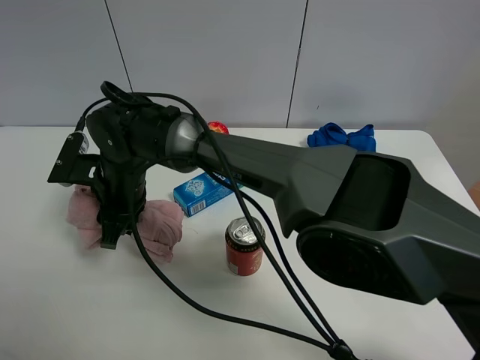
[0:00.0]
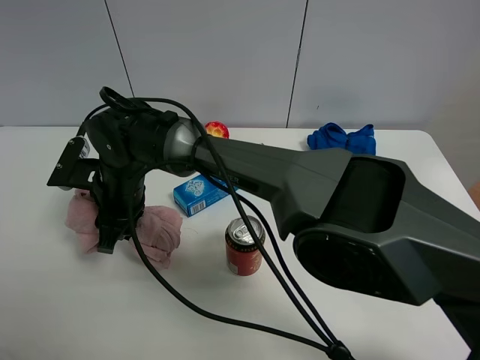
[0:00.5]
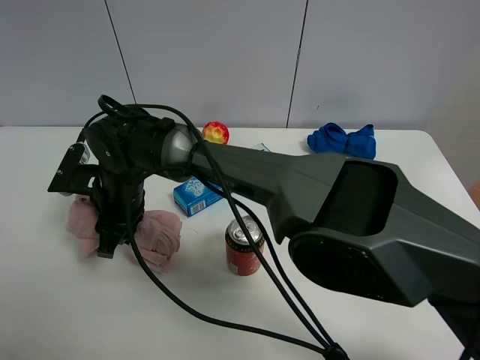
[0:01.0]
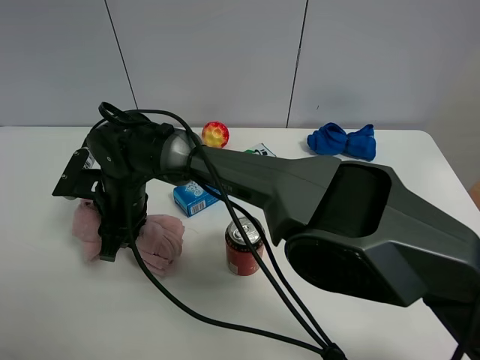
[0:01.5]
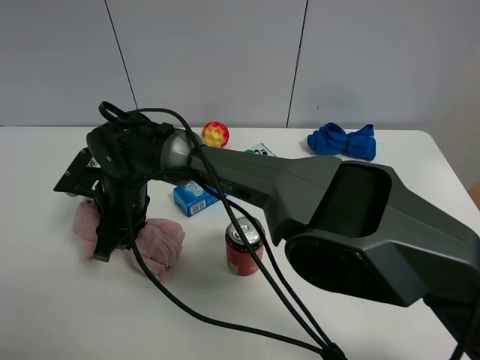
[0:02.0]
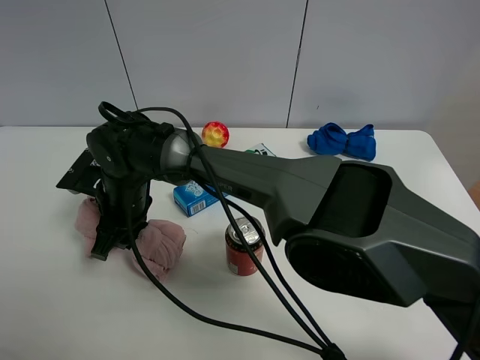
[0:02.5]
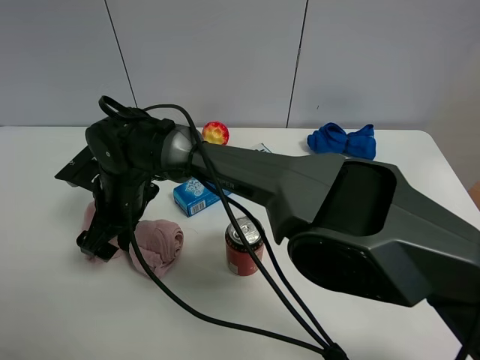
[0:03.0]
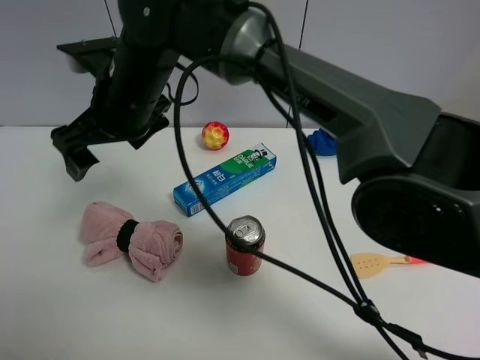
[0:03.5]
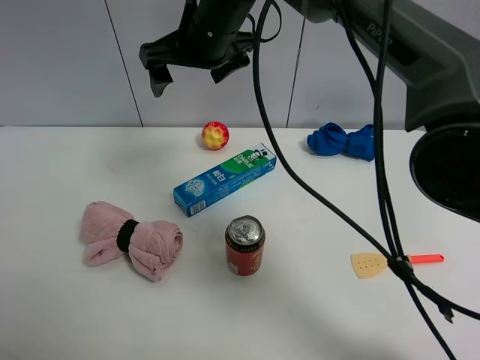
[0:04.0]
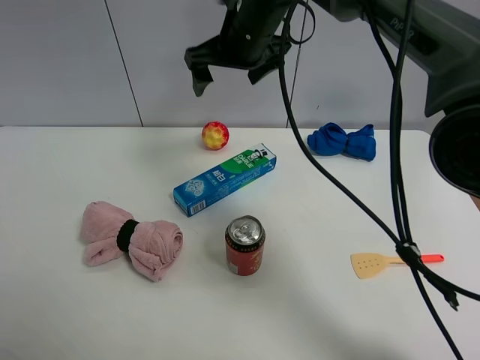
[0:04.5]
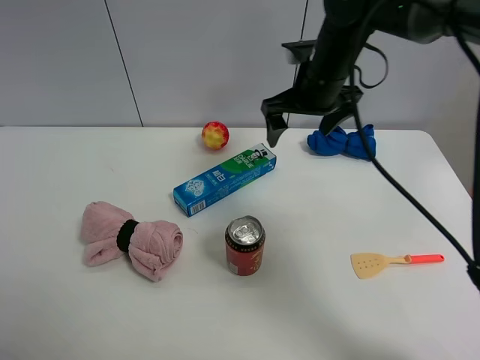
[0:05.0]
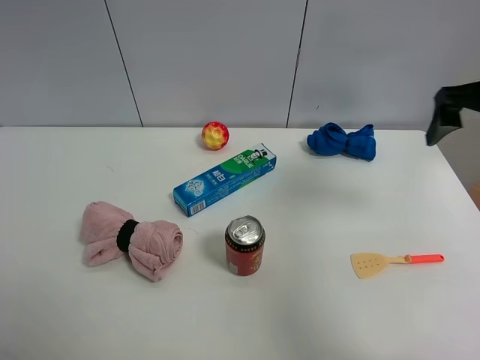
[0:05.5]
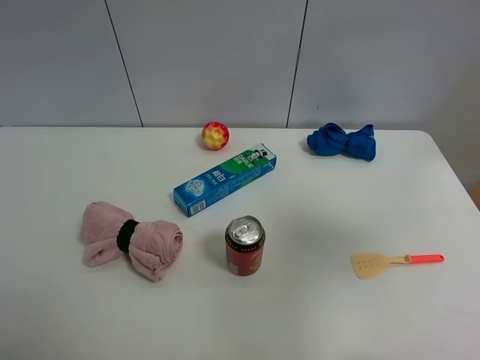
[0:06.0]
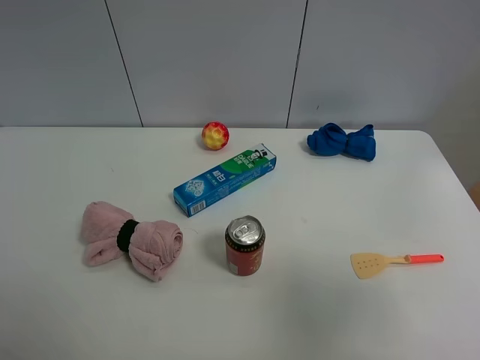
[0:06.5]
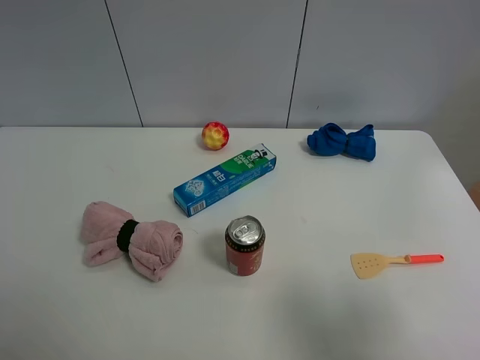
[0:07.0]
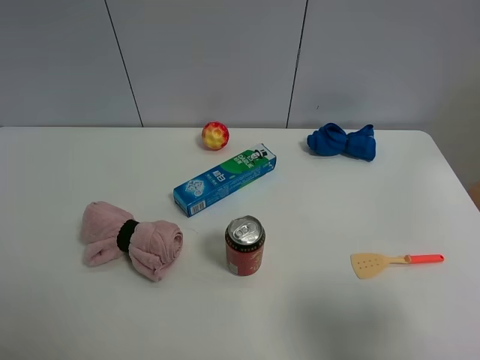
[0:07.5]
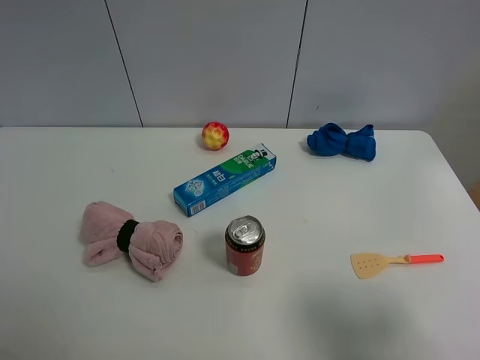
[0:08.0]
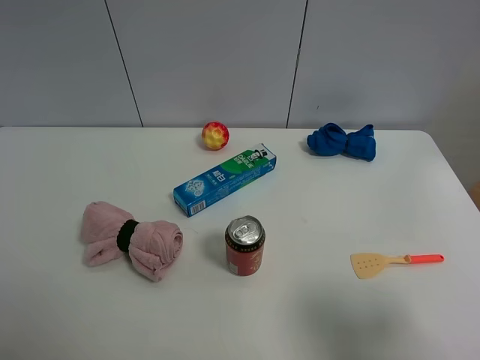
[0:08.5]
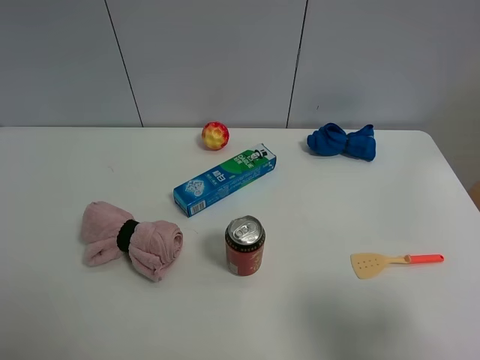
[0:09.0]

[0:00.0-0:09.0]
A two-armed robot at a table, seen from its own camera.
Task of the whole recording: the gripper move the object.
Step, 0:00.0 to 0:03.0: Place the pink towel on the table with the right gripper.
0:00.0 to 0:02.0: The grippers stay close to where they were, moving slightly.
0:02.0 to 0:04.5: The right gripper travels to the right, upward and forward by some 30 cm, and opens.
0:04.5 to 0:07.0: The right gripper goes about 50 cm backward and to the right.

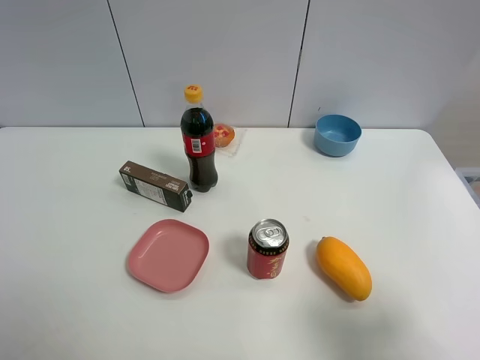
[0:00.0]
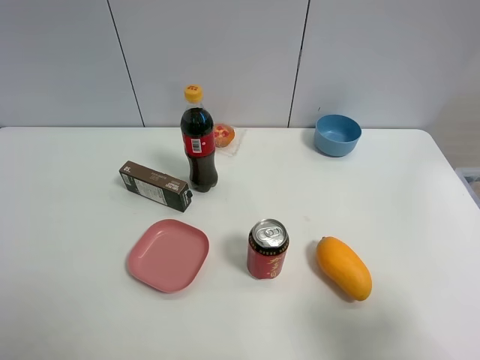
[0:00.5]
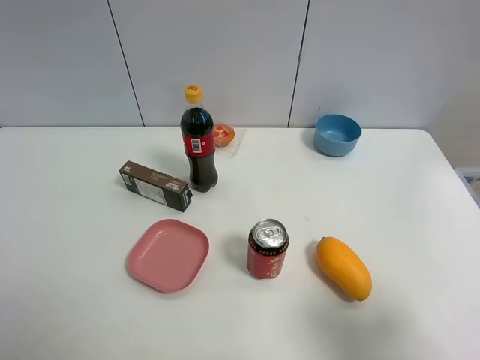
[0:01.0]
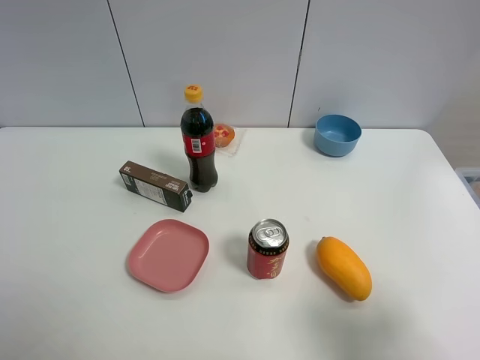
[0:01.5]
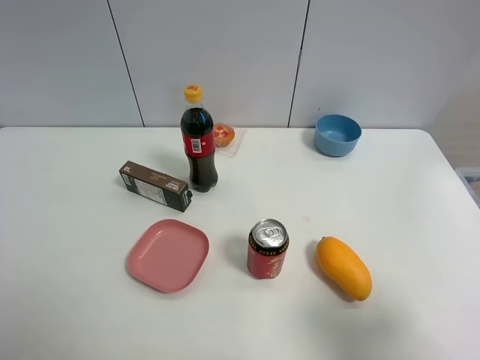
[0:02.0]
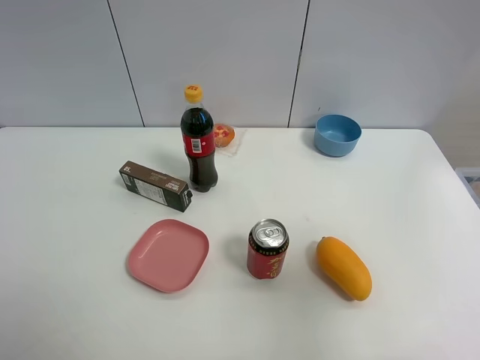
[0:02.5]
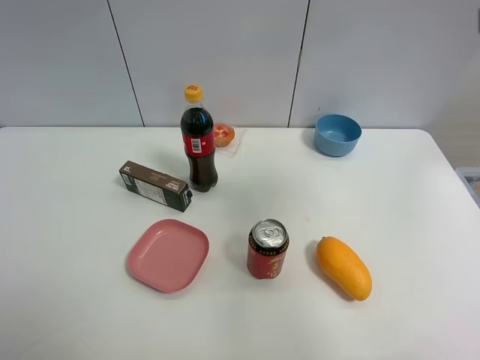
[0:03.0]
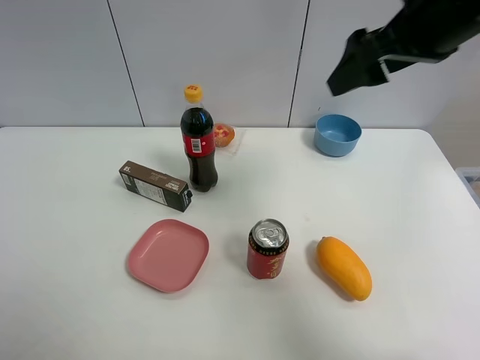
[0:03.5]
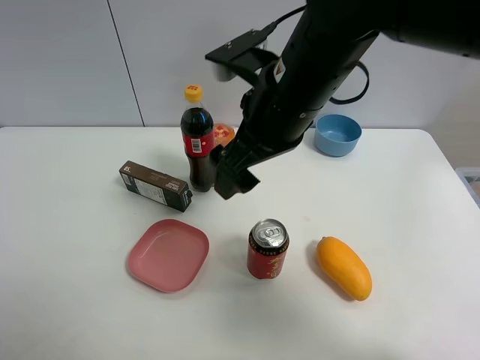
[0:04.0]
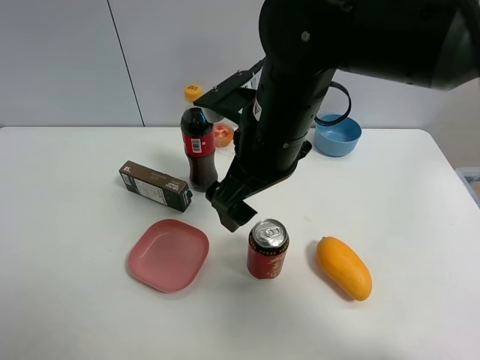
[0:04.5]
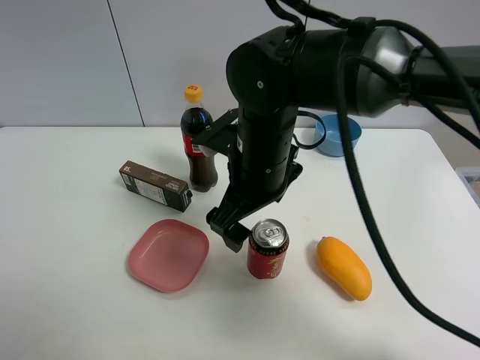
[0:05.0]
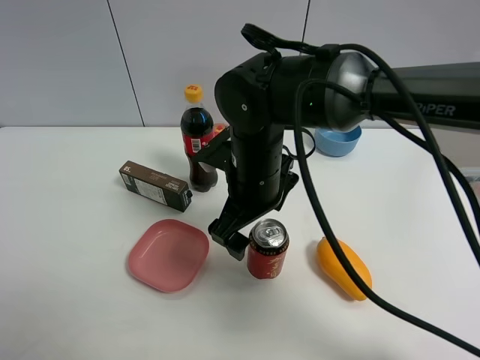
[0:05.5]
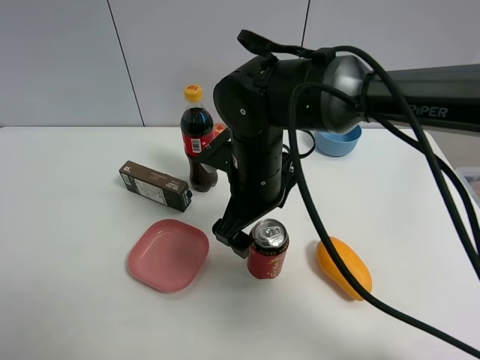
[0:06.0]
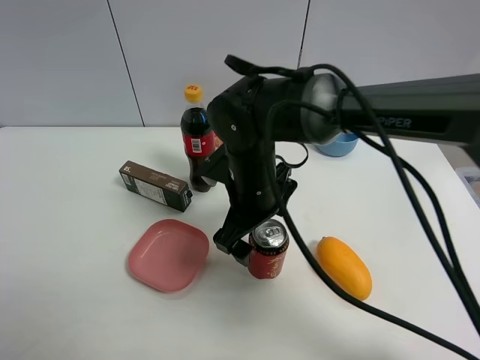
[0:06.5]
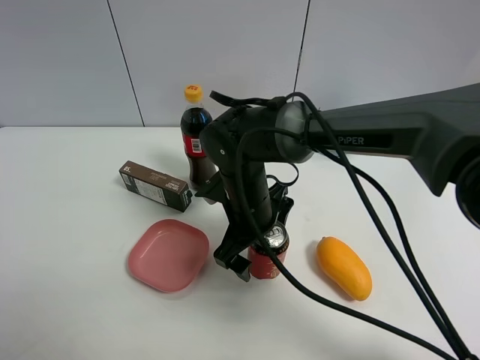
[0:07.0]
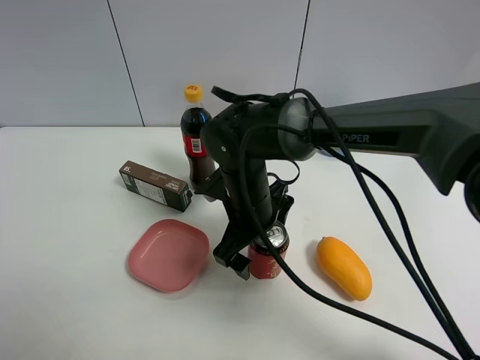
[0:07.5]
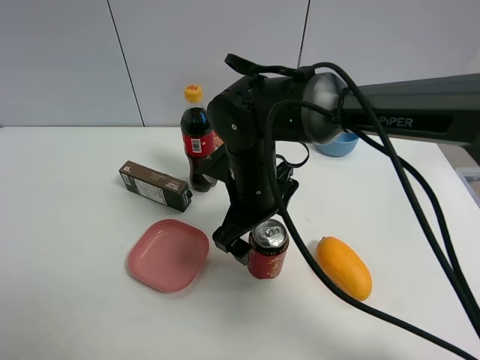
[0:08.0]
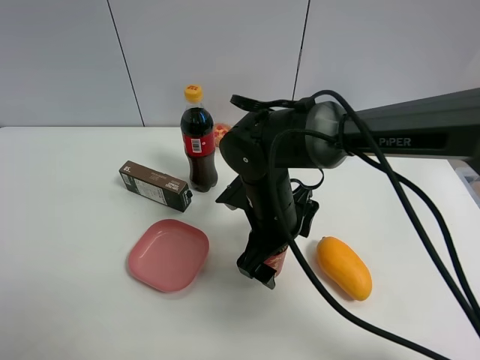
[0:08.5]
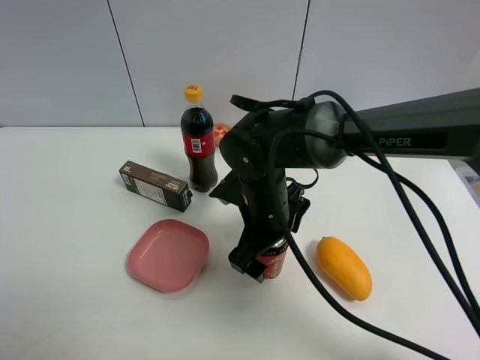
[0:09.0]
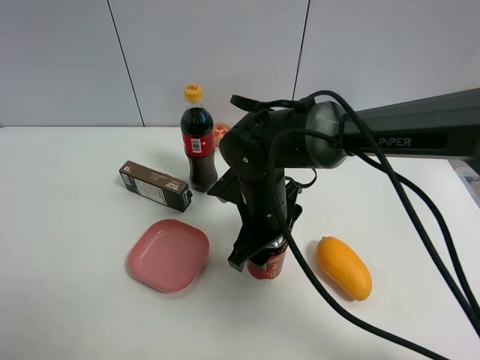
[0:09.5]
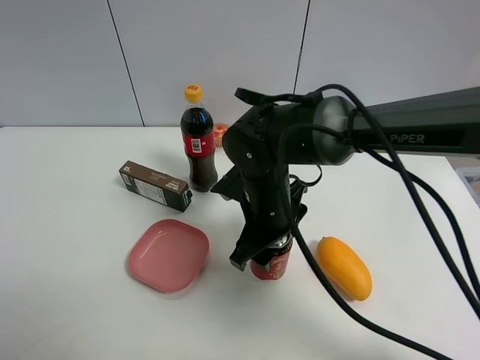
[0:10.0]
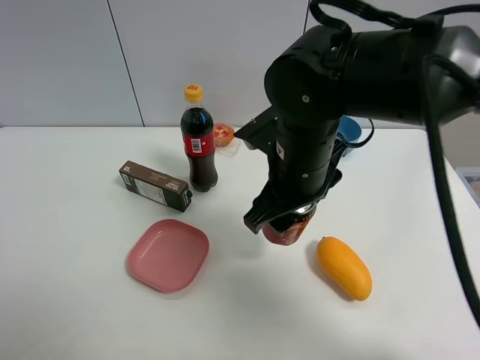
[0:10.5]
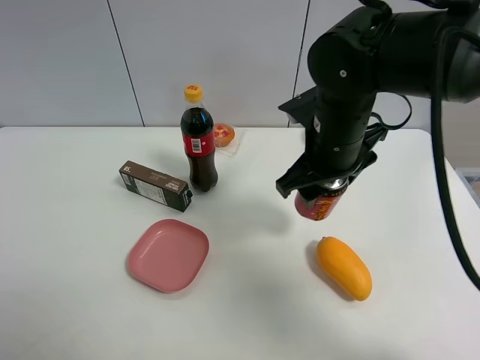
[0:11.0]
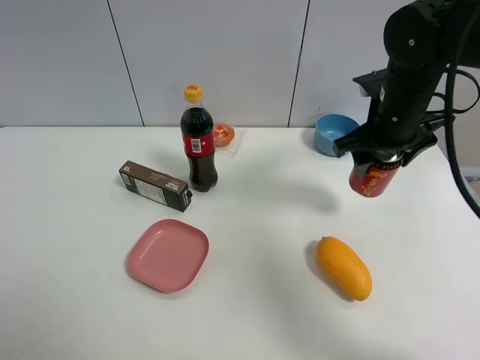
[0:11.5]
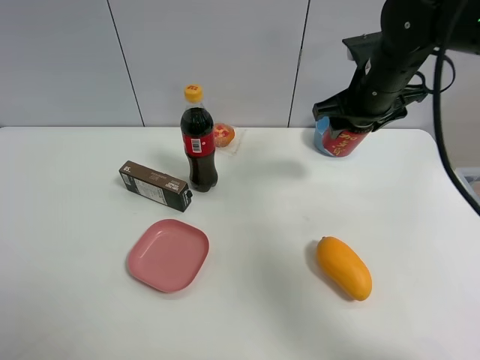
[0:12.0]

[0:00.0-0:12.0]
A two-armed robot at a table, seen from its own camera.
Task of the whole recording: the gripper move the object.
Step, 0:00.0 to 0:09.5: Grasp the Jia Duo Bao with the right gripper.
0:00.0 to 0:02.0: Both grippers stay put.
0:02.0 to 0:04.0: The right gripper moves to the left and forward, approximately 35 cm.
0:04.0 to 0:06.0: The right gripper travels downward by some 10 cm.
0:08.0 to 0:10.0: The right gripper closes up.
0:10.0 to 0:12.0: The right gripper travels to the right, forward and upward by some 20 cm.

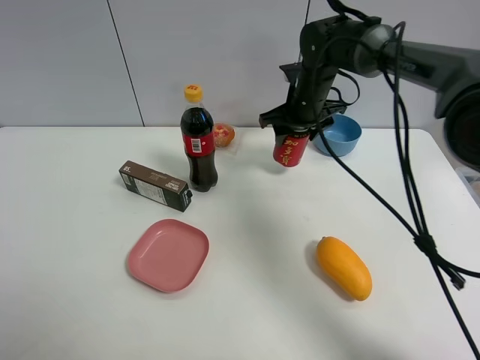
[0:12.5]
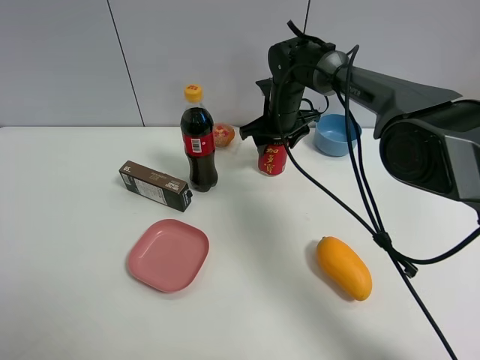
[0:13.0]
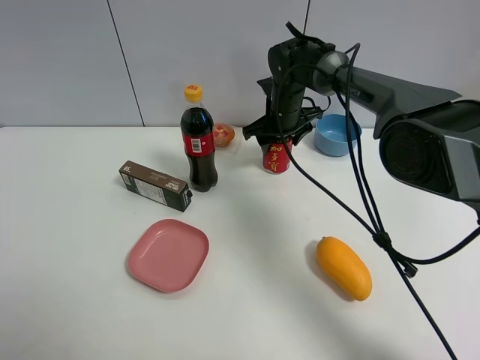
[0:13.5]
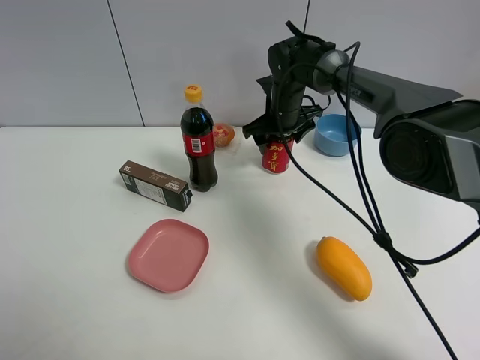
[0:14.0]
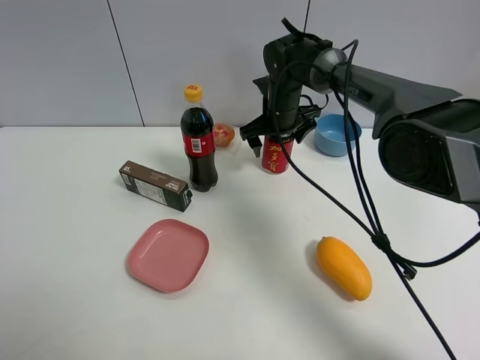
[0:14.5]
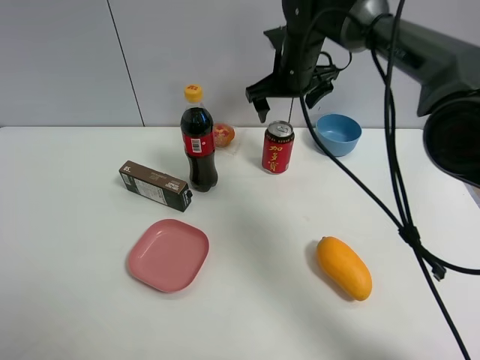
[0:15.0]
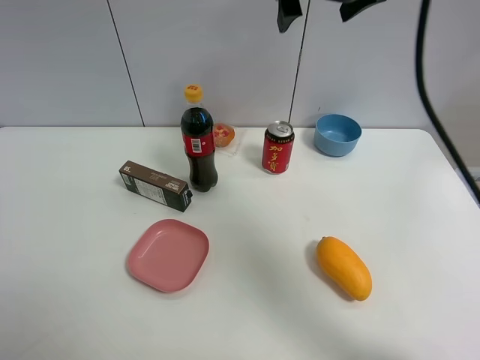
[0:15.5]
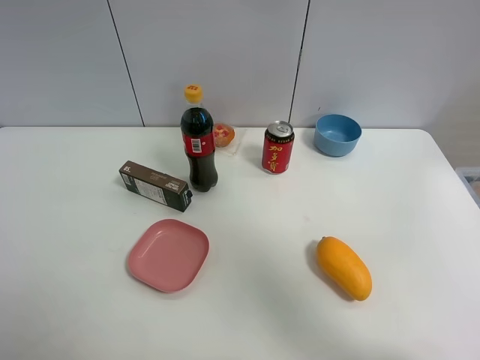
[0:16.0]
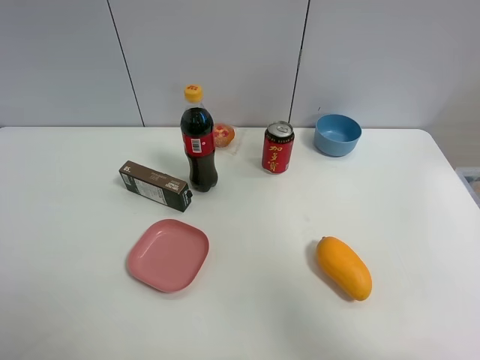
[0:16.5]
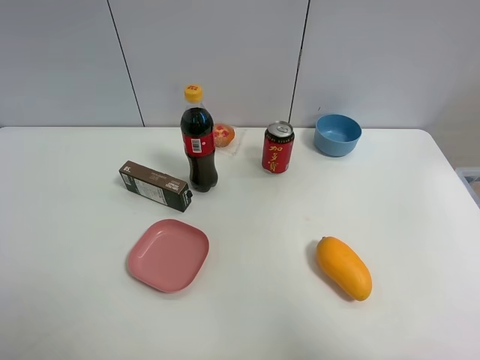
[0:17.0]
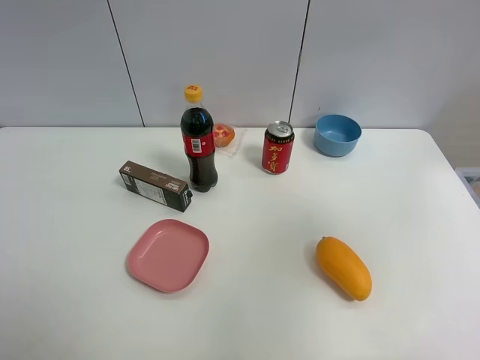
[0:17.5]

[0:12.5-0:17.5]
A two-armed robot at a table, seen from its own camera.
Task of the whole recording: the gripper move the object.
Step, 0:12.5 to 0:14.5: Place the Jia Duo Bao on the table with the right gripper.
0:12.5 to 0:15.0: The right gripper heads upward, covering approximately 5 cm, and opens its fingers.
0:15.0 to 0:17.5: The right gripper heads backward, to the right and upward, covering about 50 cm.
